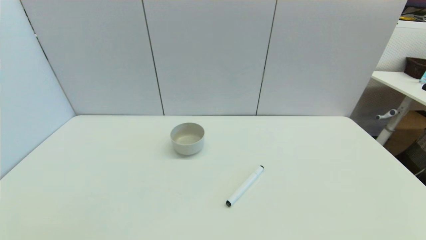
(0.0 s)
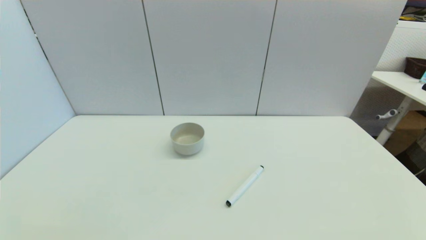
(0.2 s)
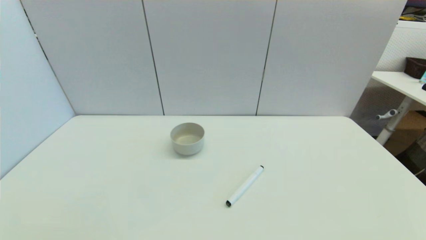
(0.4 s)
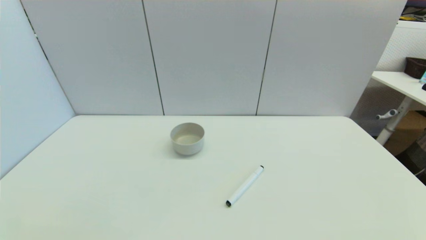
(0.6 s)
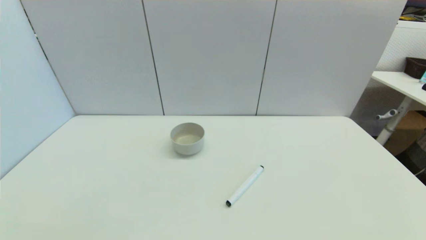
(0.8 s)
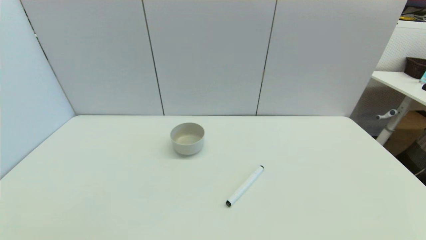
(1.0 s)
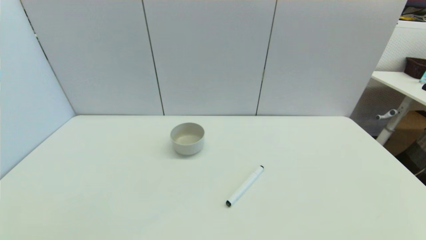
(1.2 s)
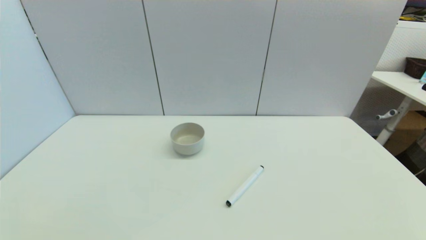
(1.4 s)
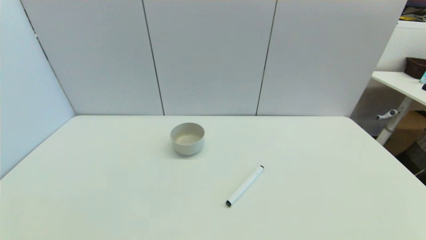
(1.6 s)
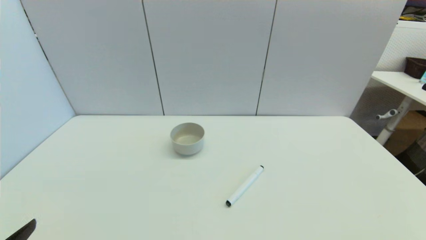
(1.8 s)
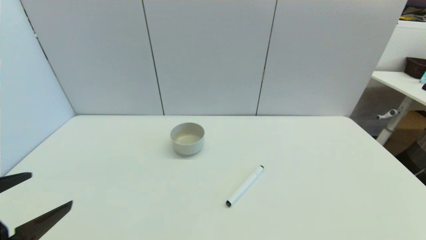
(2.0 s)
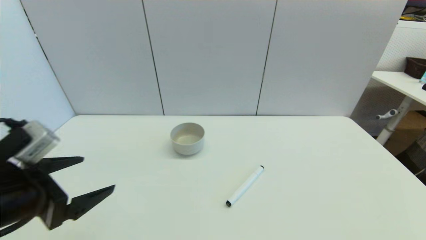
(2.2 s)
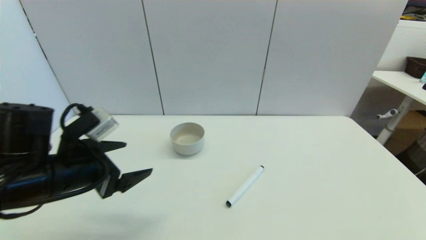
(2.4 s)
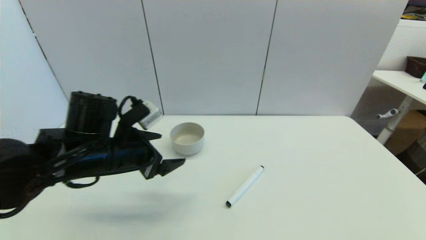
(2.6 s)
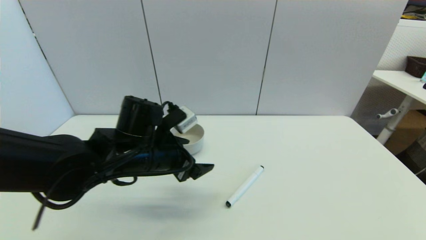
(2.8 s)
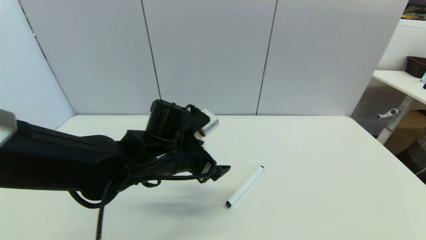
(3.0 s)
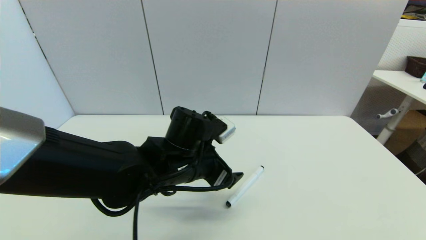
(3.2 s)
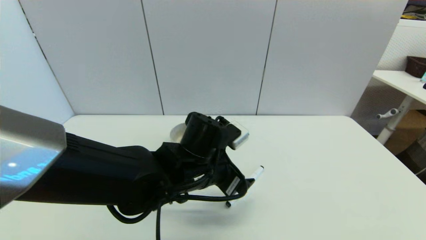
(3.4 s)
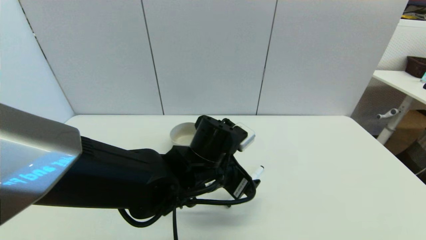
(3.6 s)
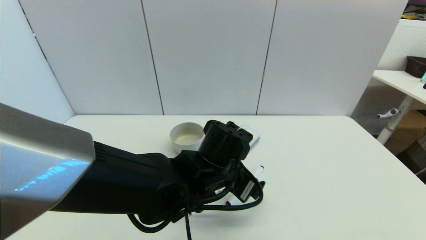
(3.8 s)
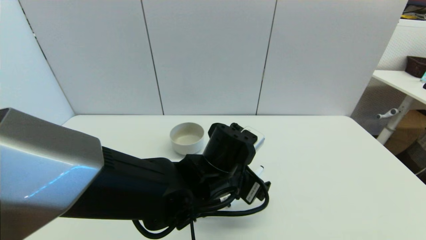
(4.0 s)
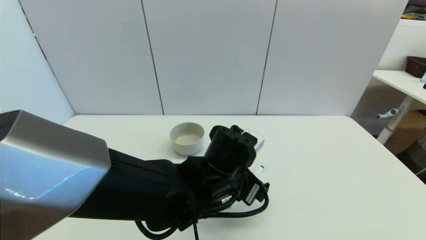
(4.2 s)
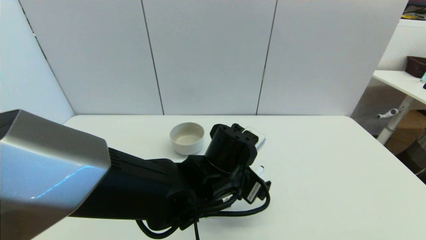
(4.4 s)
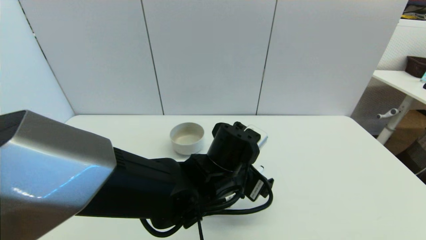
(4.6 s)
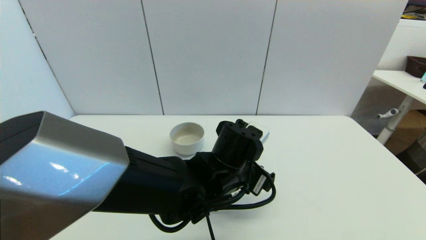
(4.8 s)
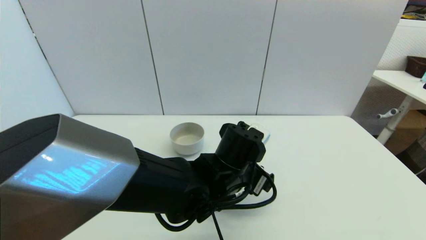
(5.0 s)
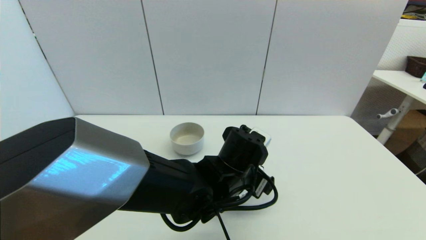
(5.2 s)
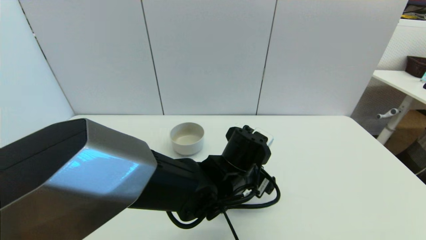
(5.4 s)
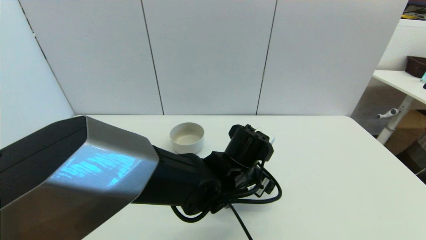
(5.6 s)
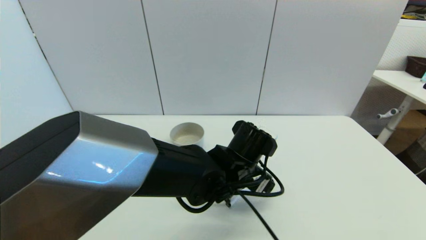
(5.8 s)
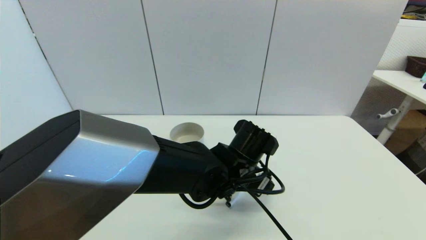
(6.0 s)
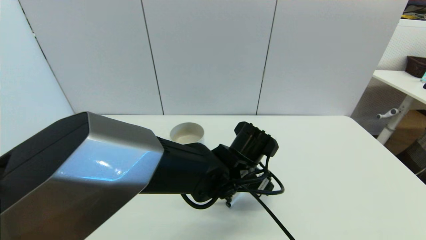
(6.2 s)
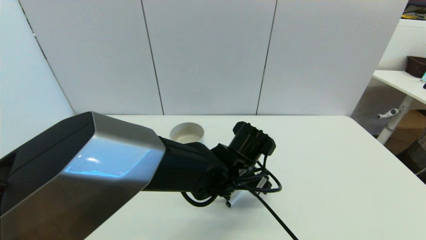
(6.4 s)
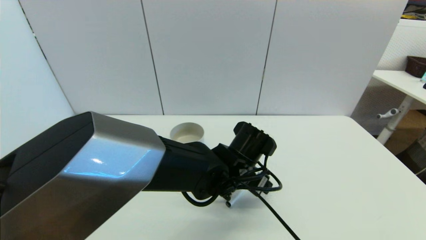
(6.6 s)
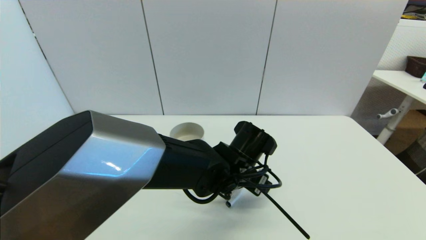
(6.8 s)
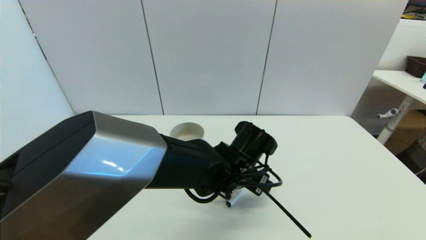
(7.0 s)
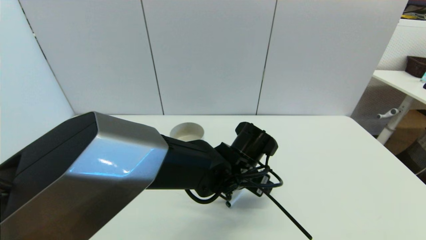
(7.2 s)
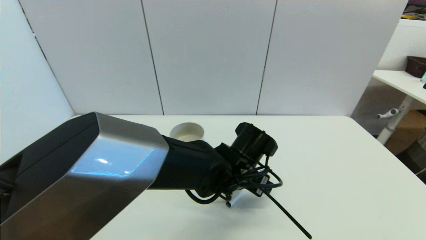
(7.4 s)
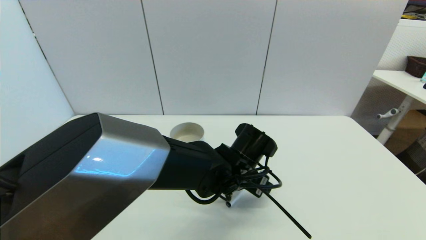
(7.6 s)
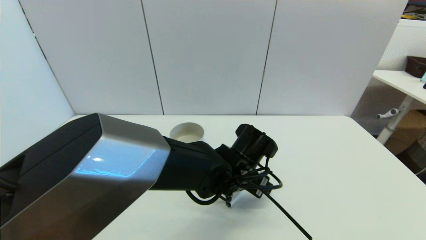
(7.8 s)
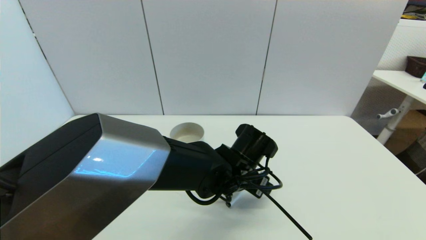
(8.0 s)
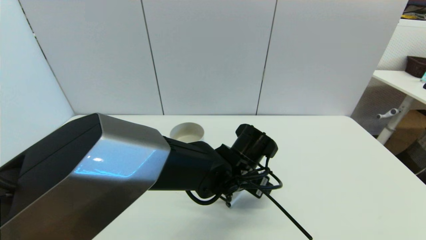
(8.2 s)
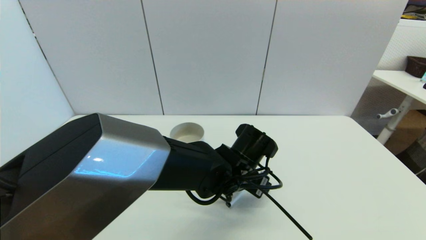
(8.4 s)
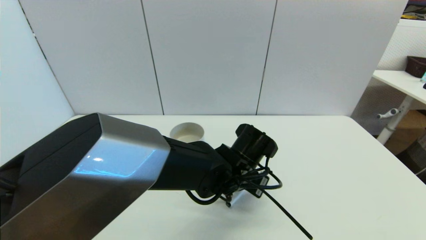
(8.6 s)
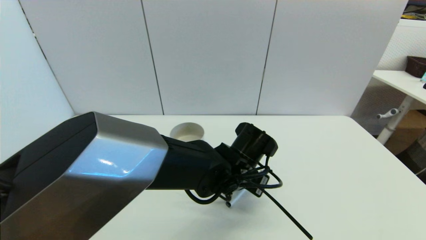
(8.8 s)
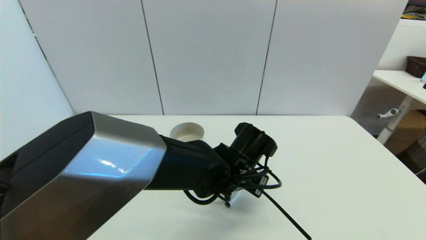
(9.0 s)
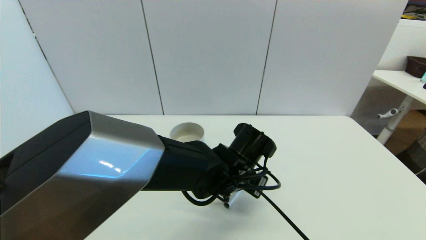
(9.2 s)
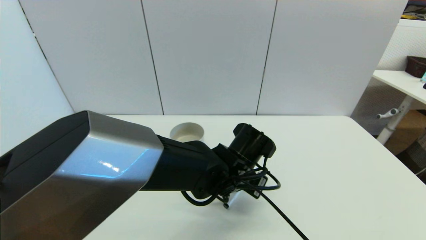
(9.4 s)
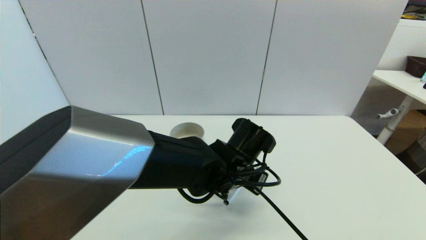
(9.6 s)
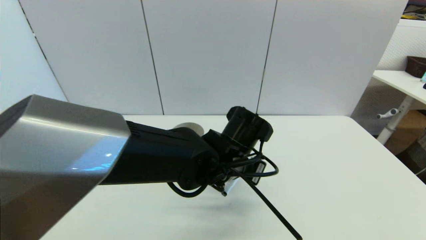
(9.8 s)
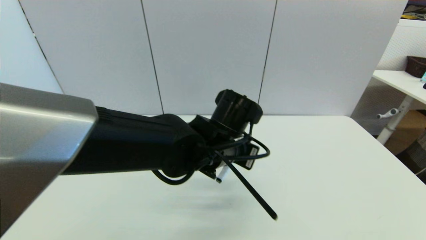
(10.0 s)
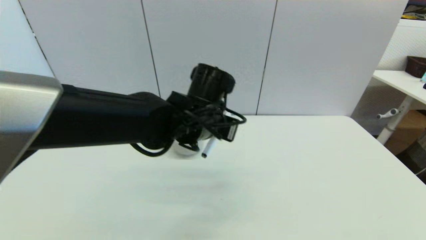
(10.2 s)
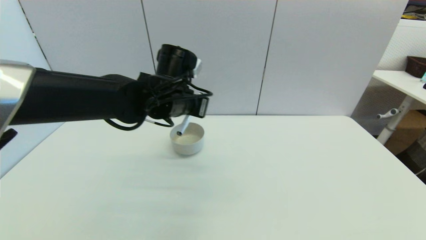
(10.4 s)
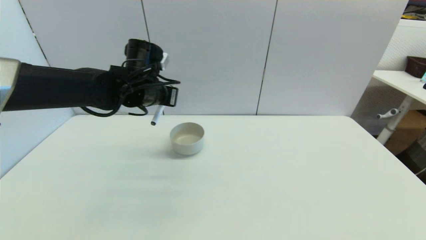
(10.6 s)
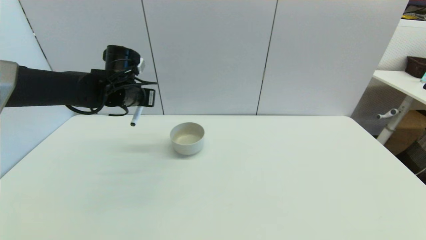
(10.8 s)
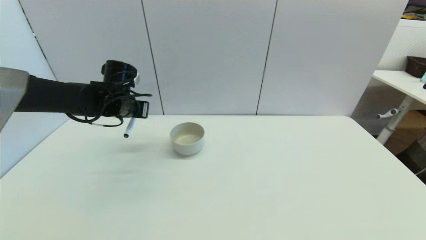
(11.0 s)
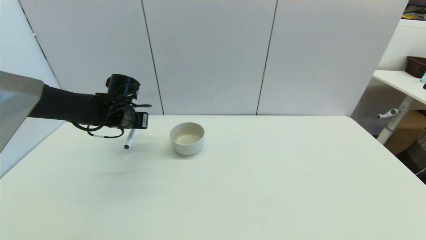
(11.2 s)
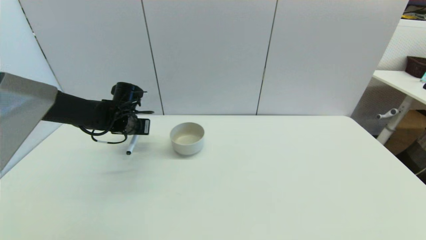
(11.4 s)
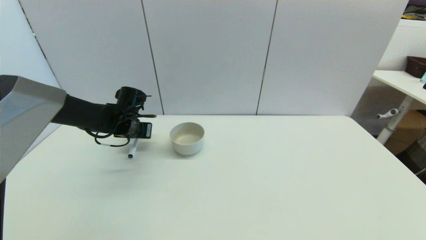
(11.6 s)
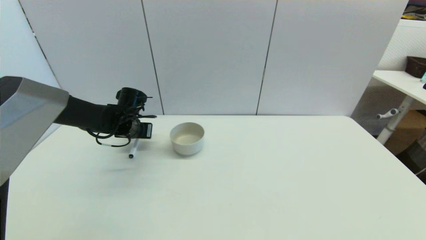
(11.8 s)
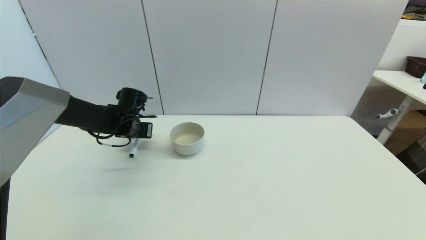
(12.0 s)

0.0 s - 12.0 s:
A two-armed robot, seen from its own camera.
Task of the whole recording: put the black marker in the designated position.
Step, 1.8 s - 9.2 s: Grasp the Marker pen with left gripper.
1.6 s - 3.0 s: The left gripper goes about 35 cm forward and to the right.
3.0 s - 4.4 s: The left gripper travels to the right by some 10 cm.
6.0 s - 7.6 s: The grippers move only a little.
7.6 s - 9.0 s: The left gripper closes.
9.0 s - 10.4 s: The left gripper moves to the left, upward and forward, about 20 cm.
10.4 s - 12.0 s: The left gripper heads to the left, downward and forward, covering approximately 20 cm.

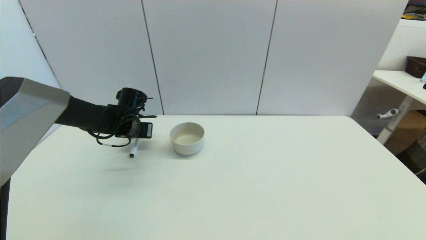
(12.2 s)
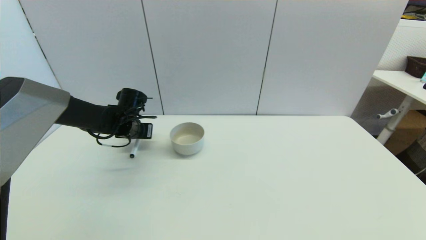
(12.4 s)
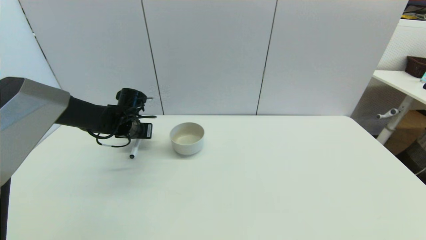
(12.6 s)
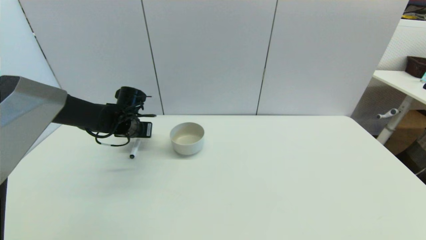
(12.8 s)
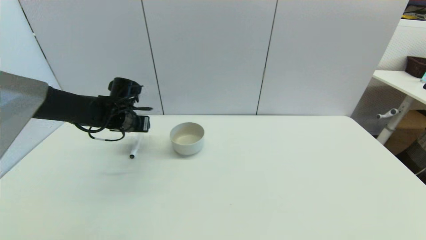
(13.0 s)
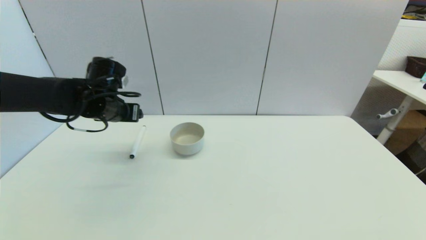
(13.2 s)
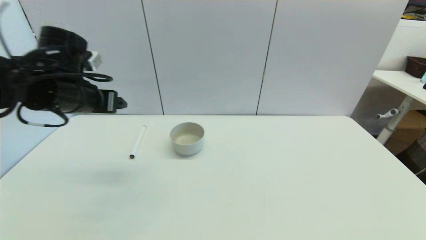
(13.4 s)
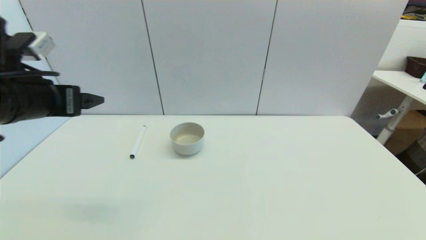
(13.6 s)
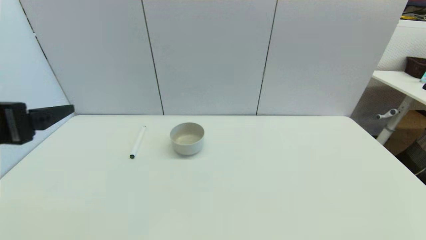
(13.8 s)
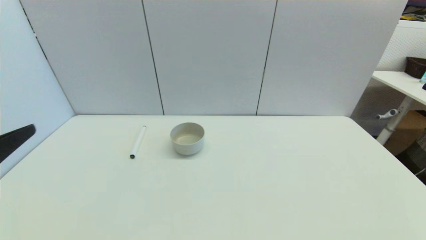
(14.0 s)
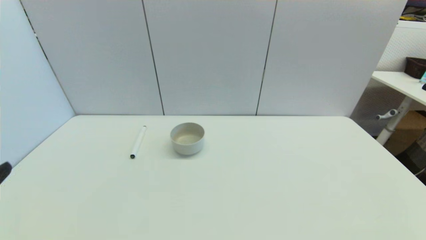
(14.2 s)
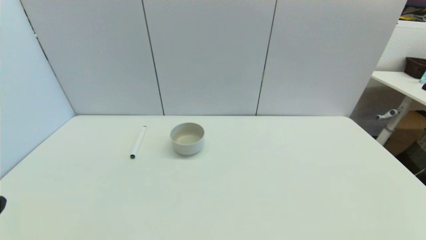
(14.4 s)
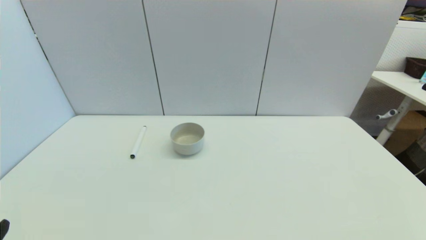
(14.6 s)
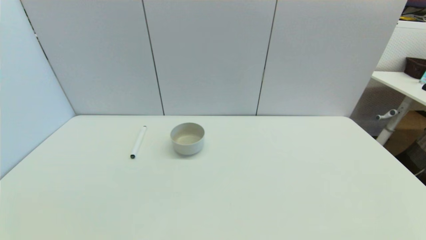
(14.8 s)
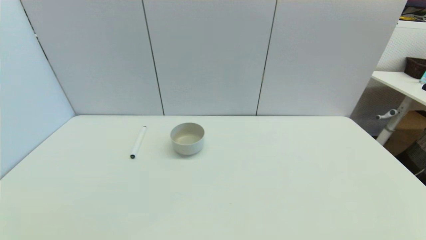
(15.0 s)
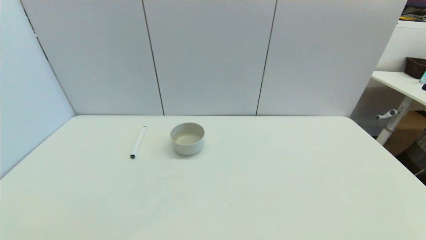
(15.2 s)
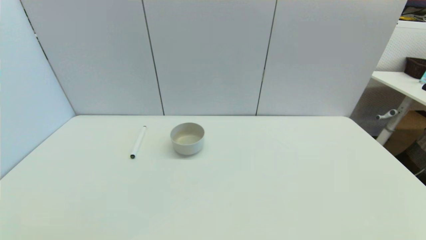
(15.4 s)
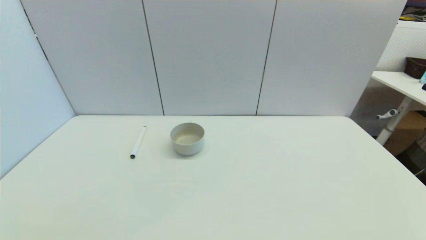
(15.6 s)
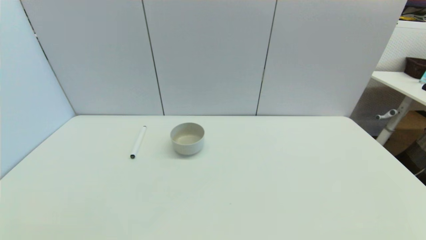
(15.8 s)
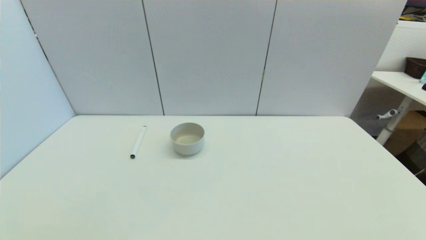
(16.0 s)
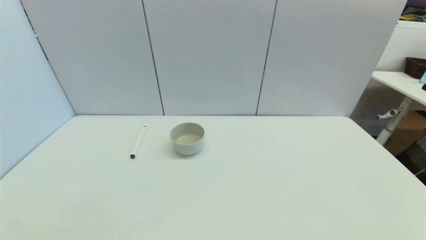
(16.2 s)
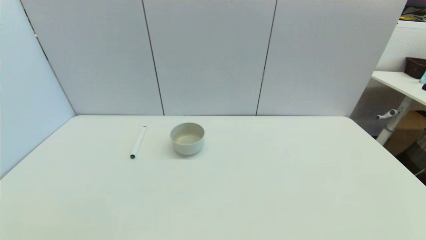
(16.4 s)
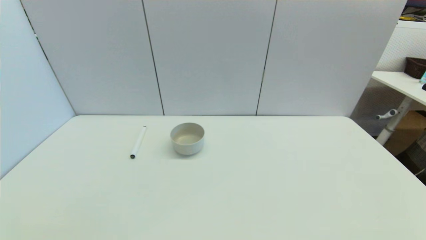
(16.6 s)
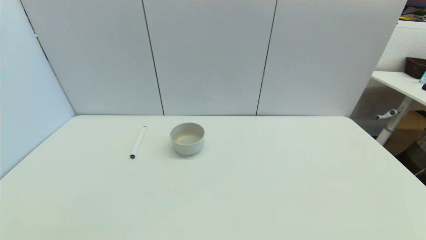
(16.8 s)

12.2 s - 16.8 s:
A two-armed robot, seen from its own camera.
Task of the whole recording: put the black marker in the designated position.
12.2 s - 13.8 s: The left gripper shifts approximately 35 cm backward and upward, and opens up.
13.8 s - 15.2 s: The left gripper heads downward and backward, covering roughly 25 cm.
